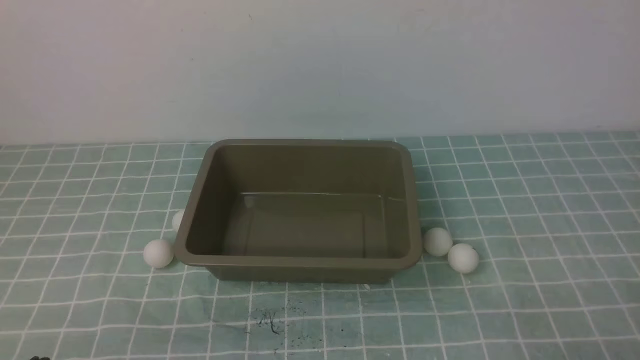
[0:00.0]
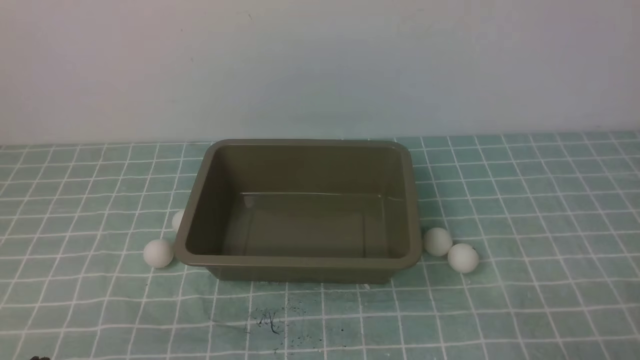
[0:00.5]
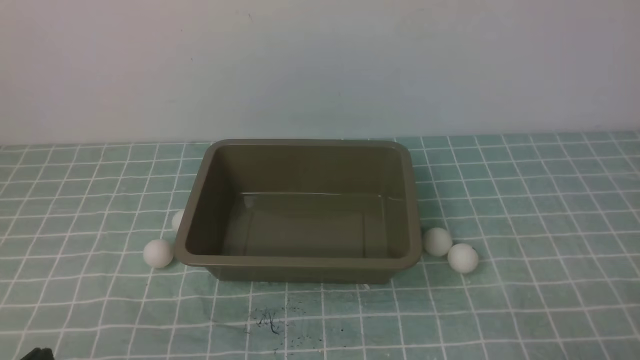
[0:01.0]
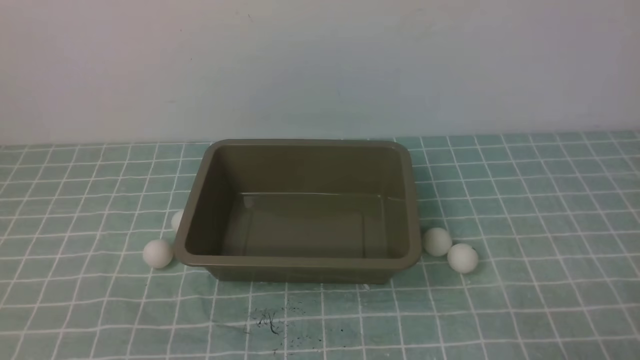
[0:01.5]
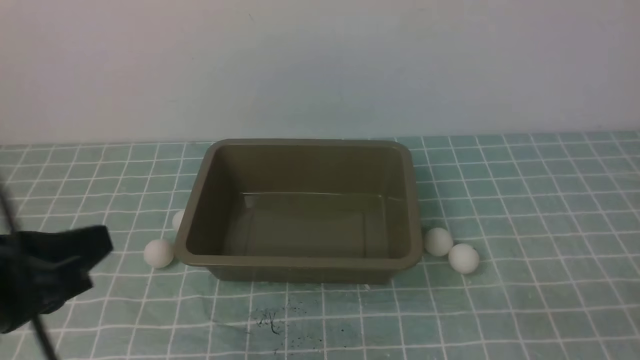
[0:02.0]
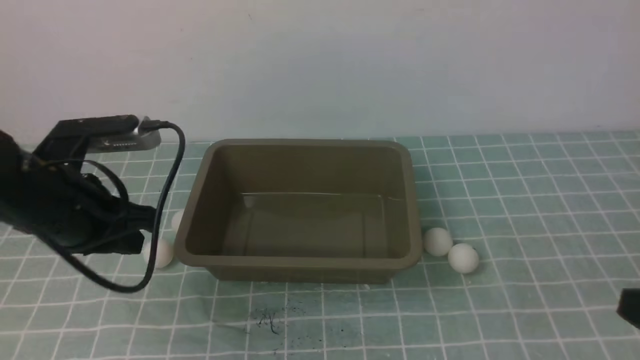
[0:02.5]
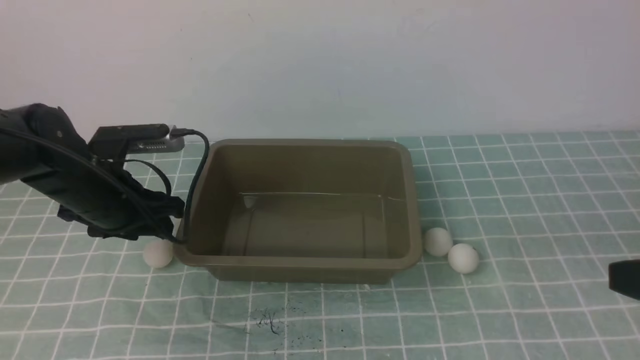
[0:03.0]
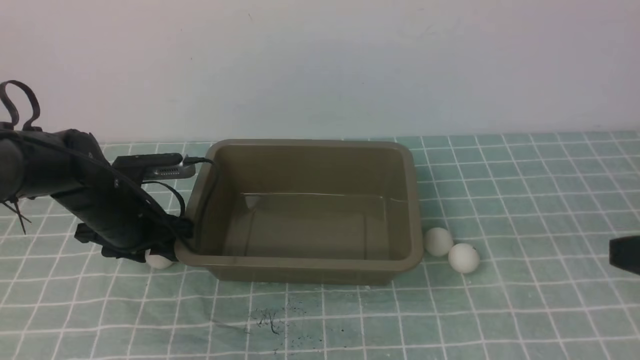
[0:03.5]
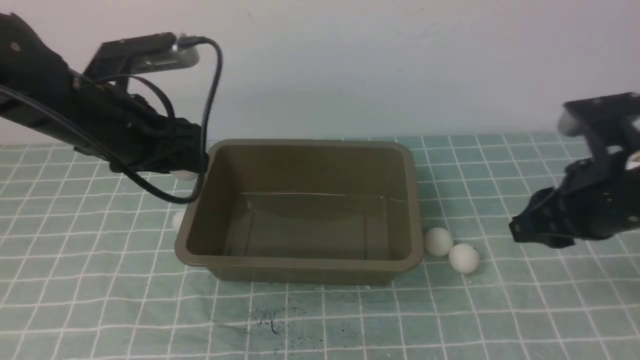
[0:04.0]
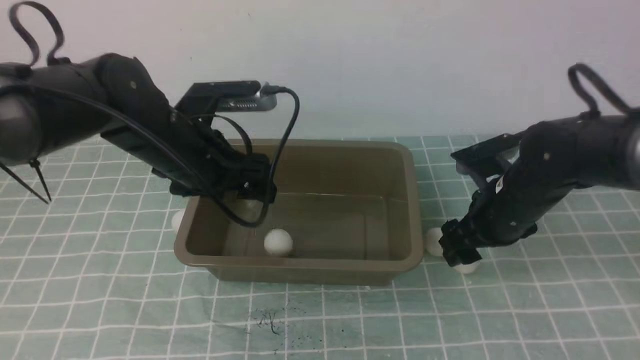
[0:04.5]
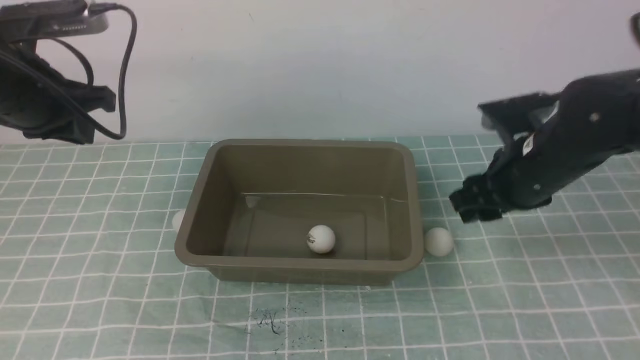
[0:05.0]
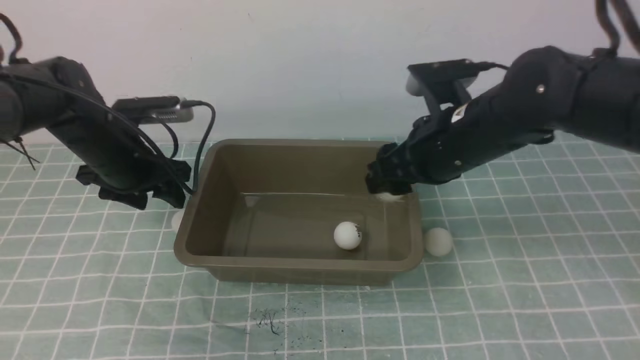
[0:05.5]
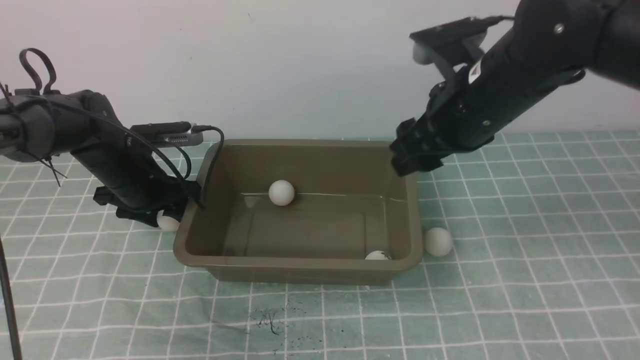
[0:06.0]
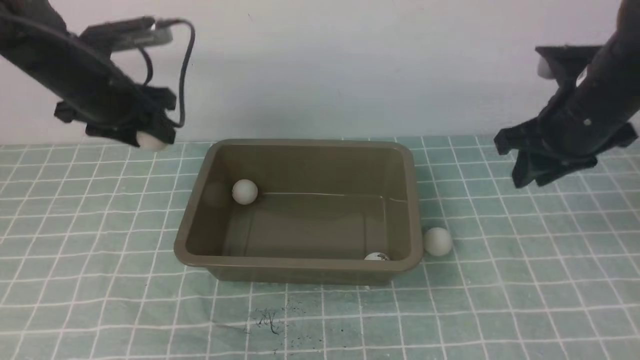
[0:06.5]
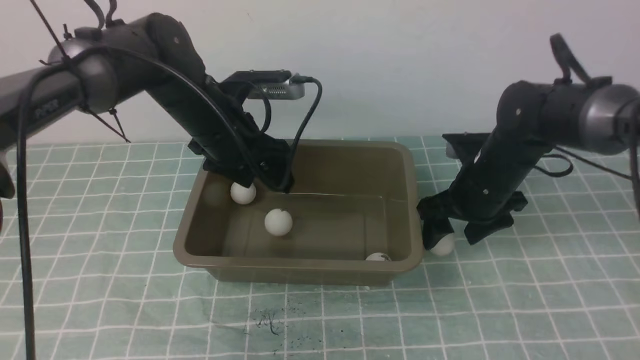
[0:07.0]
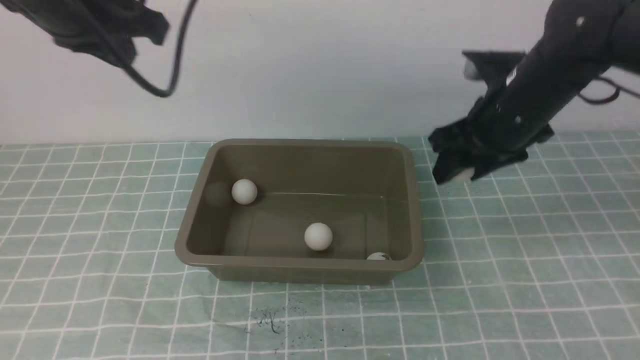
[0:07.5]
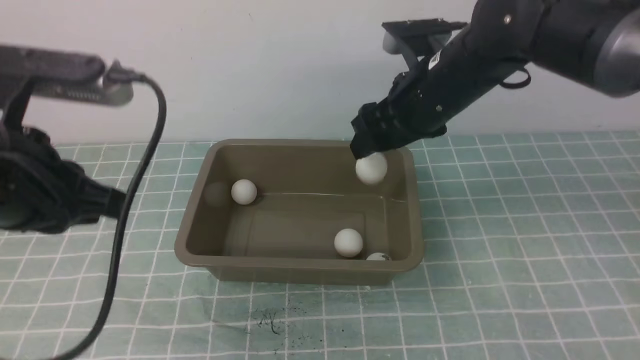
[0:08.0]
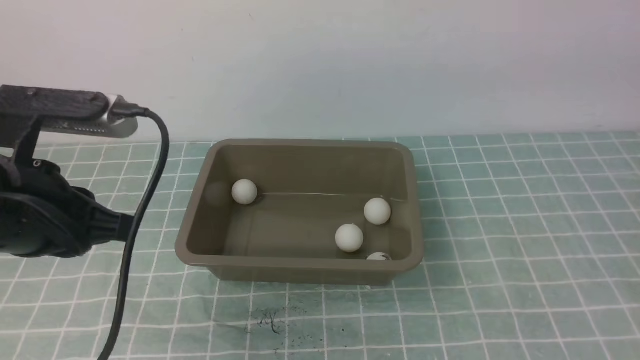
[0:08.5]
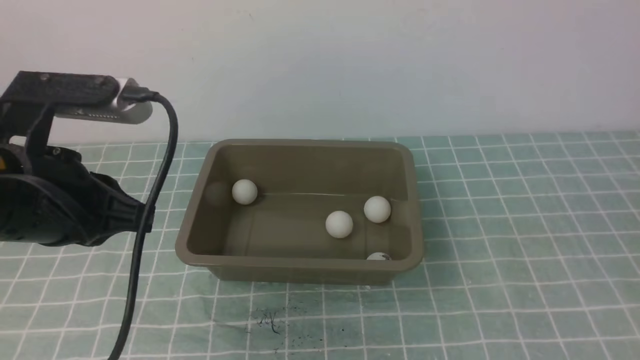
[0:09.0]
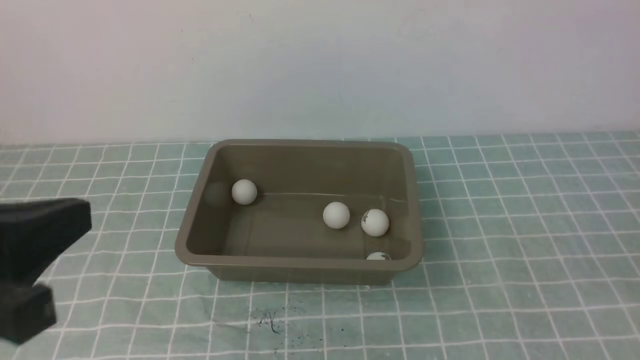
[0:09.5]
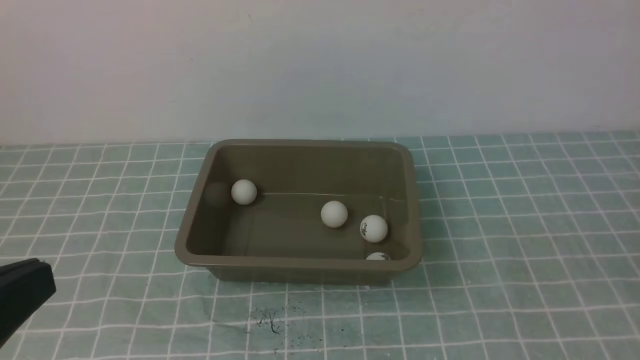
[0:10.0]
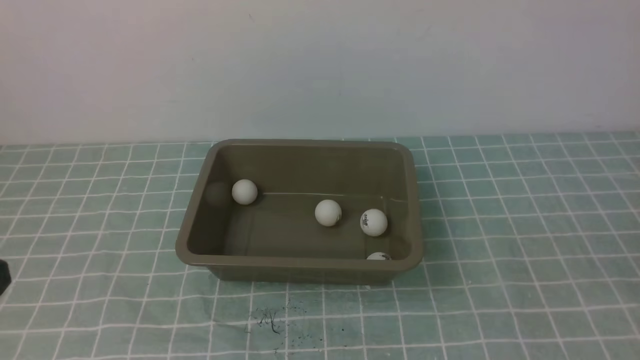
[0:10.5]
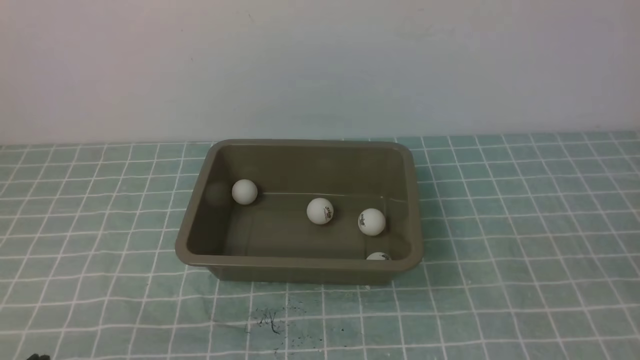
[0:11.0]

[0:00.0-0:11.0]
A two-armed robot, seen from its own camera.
Step, 0:00.0 to 0:03.5: use the left arm to clamp the table tennis ball closest to it.
Step, 0:05.0 to 0:05.5: use the right arm to put the table tennis ball into the box.
Step, 0:06.5 to 0:07.0: use the left arm to put the table tennis ball into the box.
Step, 0:07.5 to 0:08.0: use the right arm to put the table tennis ball into the box.
0:00.0 to 0:02.0: The left gripper goes roughly 15 cm upward and forward.
0:02.0 to 0:03.5: The right gripper moves upward and forward, some 15 cm; the left gripper heads forward and downward, covering some 25 cm, and opens up.
0:03.5 to 0:05.5: The left gripper heads forward, covering roughly 5 cm, moves roughly 15 cm upward and comes back, and closes, then opens again. Meanwhile the right gripper is displaced forward and to the left by approximately 25 cm, and opens up.
0:05.5 to 0:07.5: The left gripper moves upward, approximately 20 cm, and closes up. Meanwhile the right gripper goes up and down, approximately 15 cm each way, reversing 2 times.
0:07.5 to 0:09.0: The left gripper goes about 15 cm backward and downward. Meanwhile the right gripper travels backward and to the right by approximately 40 cm, and closes.
0:09.0 to 0:11.0: The right gripper shifts by about 5 cm. The left gripper goes roughly 20 cm downward and backward.

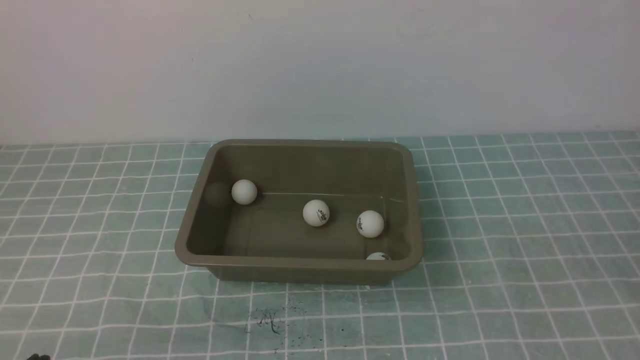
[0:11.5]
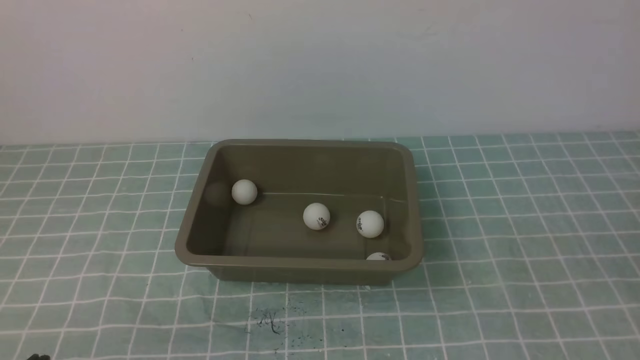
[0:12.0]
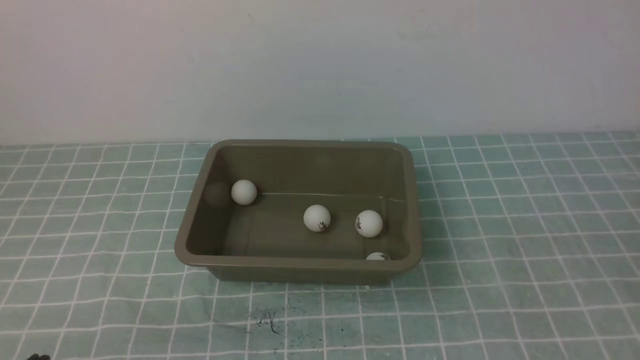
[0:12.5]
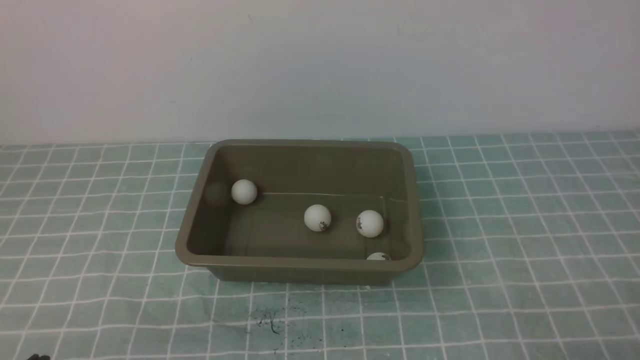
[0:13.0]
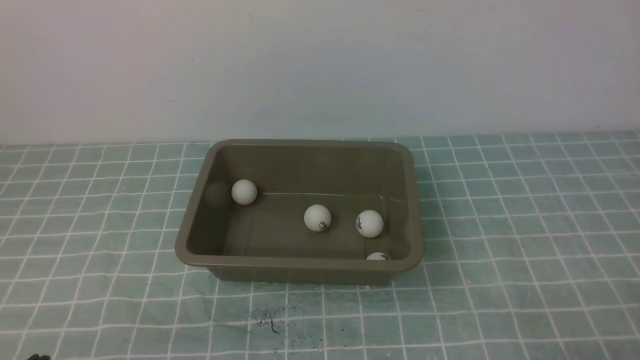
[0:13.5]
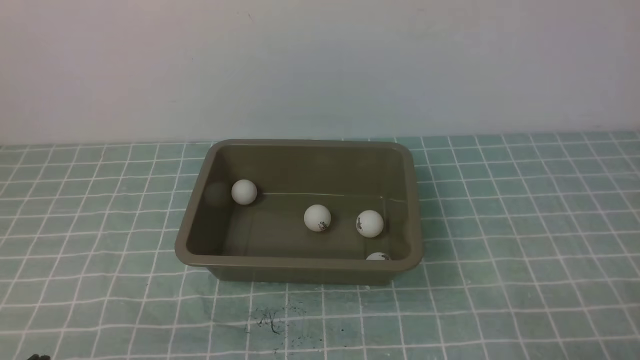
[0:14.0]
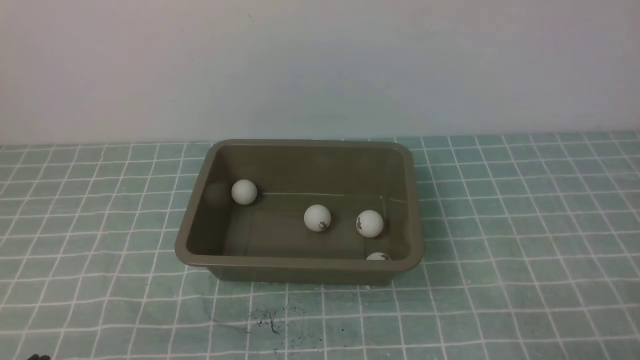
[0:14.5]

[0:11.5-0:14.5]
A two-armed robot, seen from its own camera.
0:13.0 to 0:14.5: Neither gripper changes place.
